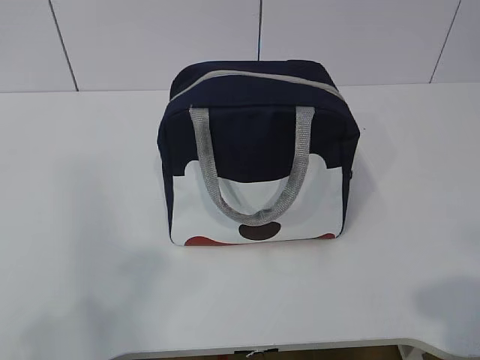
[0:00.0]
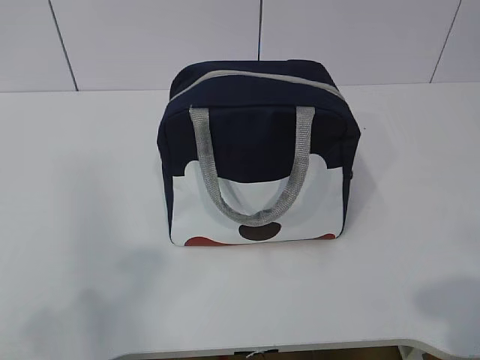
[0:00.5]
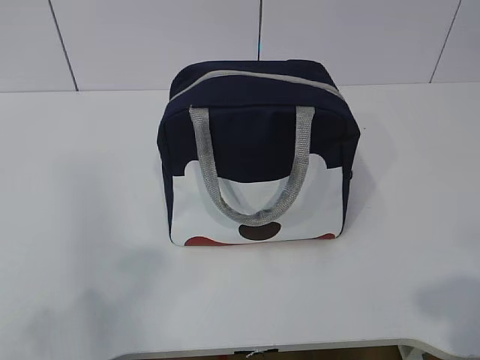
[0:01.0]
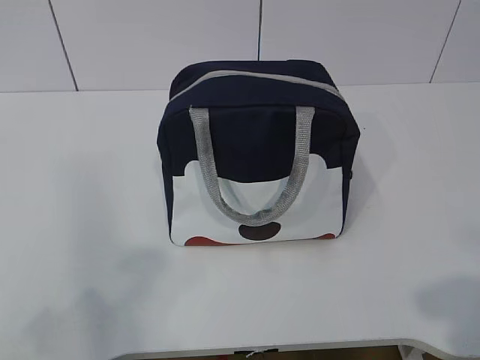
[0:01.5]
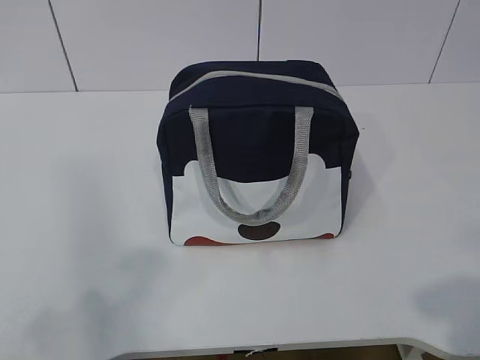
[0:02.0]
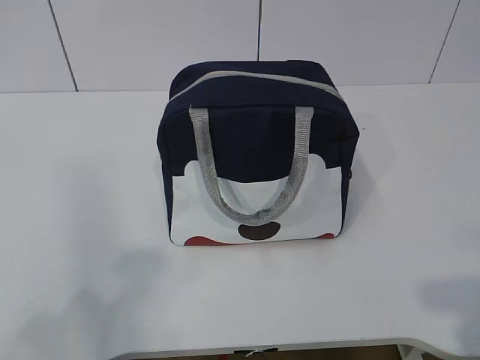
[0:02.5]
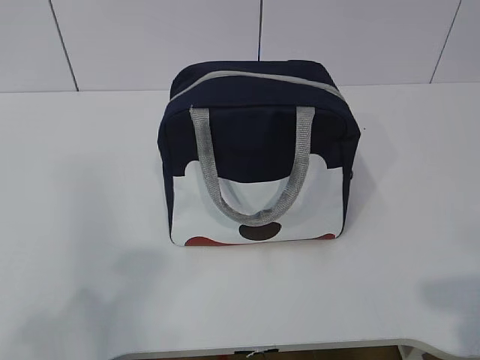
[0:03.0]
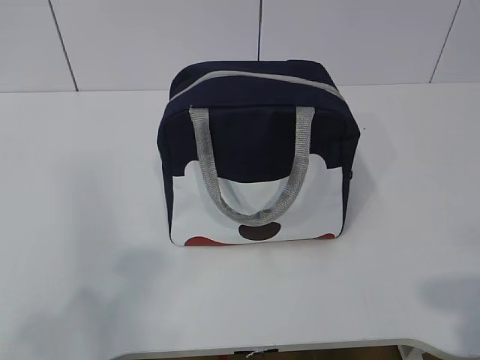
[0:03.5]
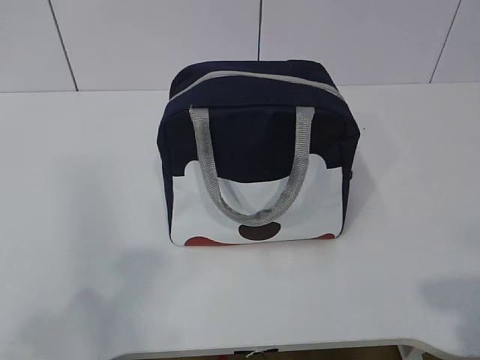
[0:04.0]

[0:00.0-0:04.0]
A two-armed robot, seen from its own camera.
0:00.0 to 0:02.0: Neither gripper changes place.

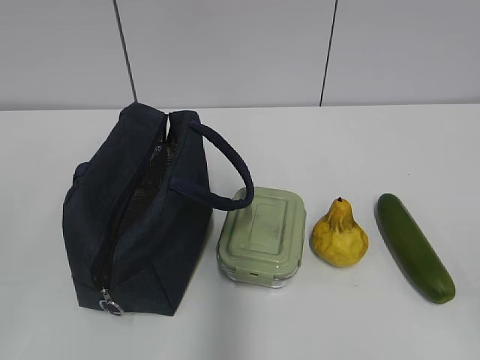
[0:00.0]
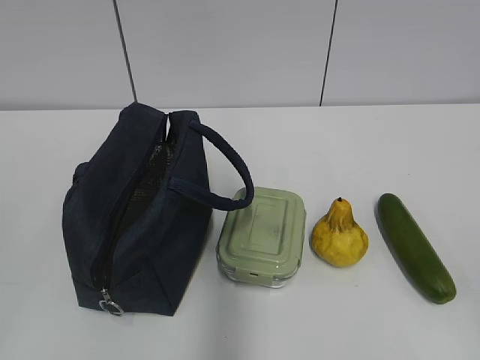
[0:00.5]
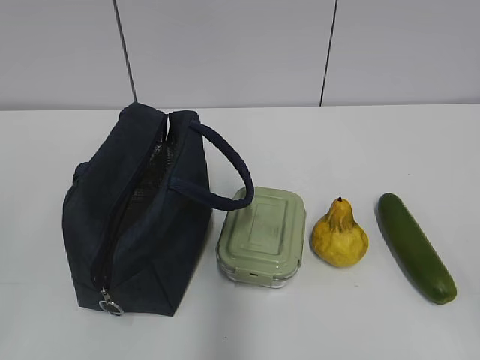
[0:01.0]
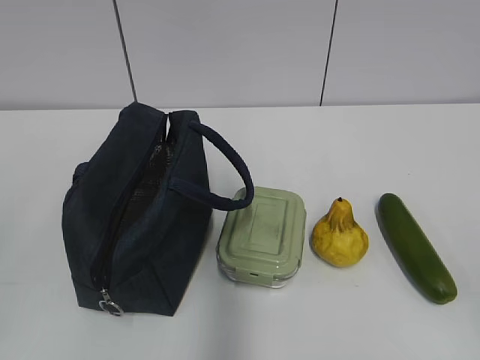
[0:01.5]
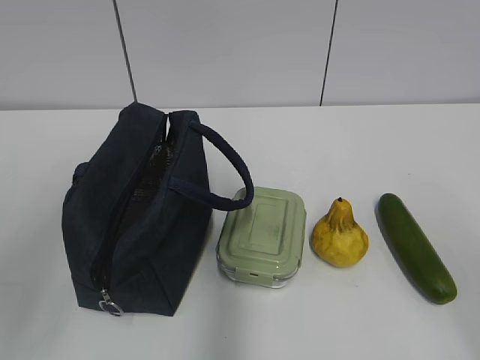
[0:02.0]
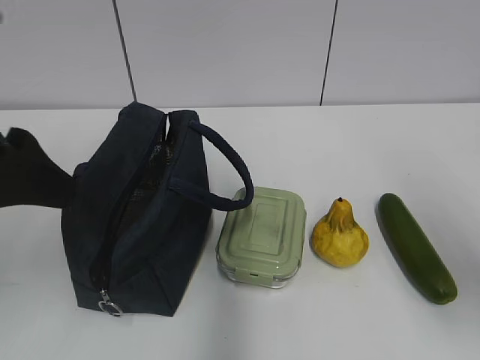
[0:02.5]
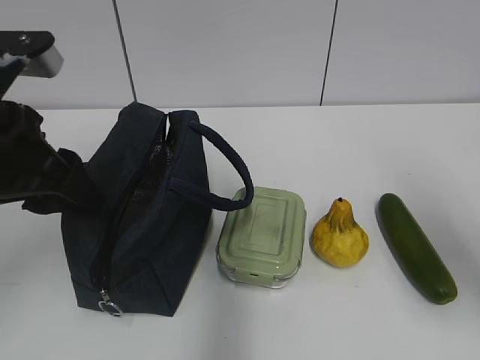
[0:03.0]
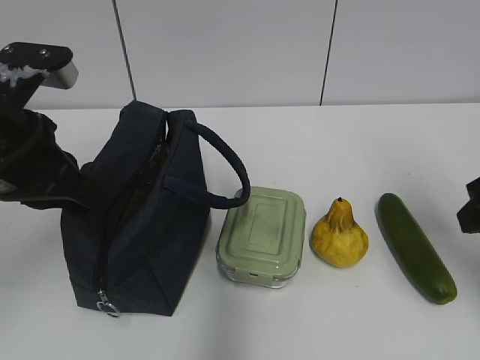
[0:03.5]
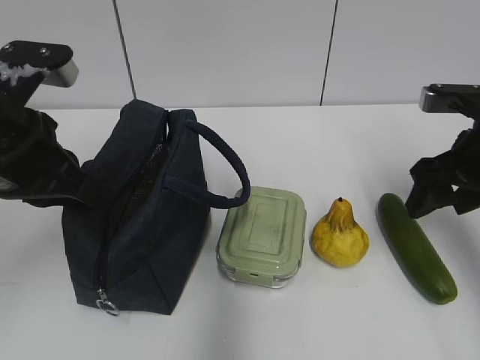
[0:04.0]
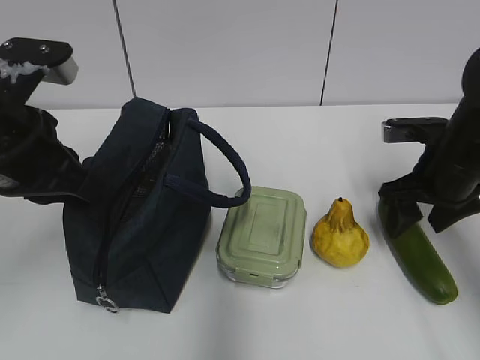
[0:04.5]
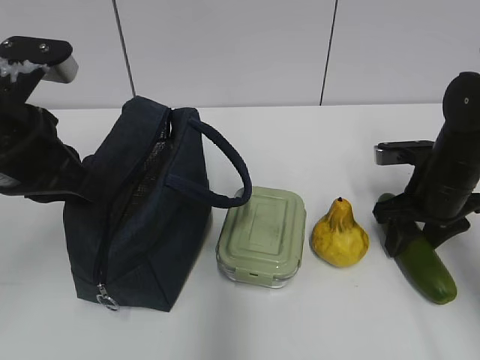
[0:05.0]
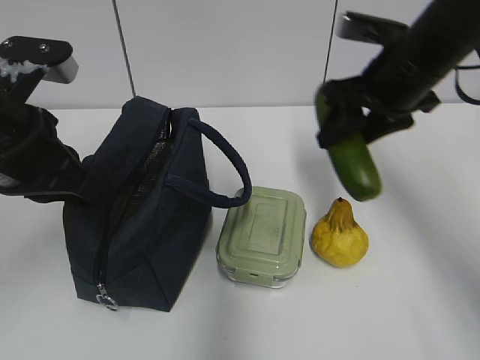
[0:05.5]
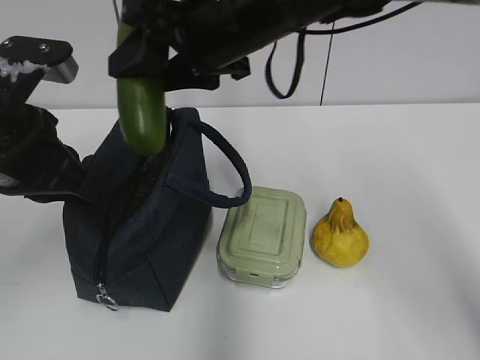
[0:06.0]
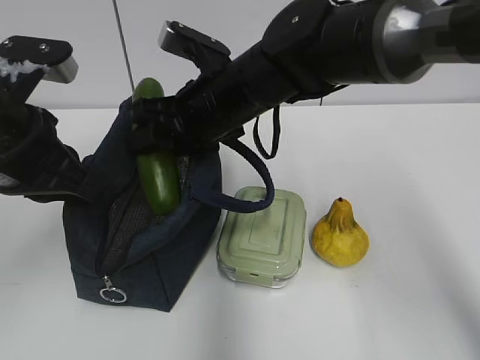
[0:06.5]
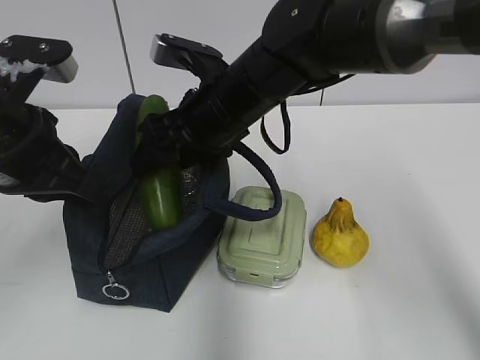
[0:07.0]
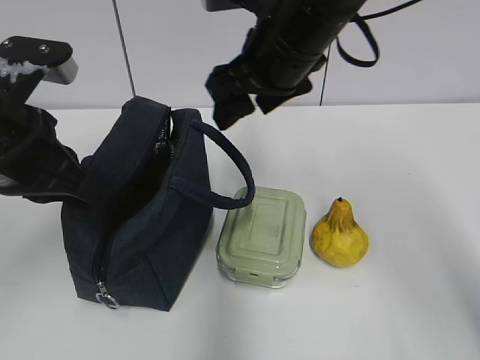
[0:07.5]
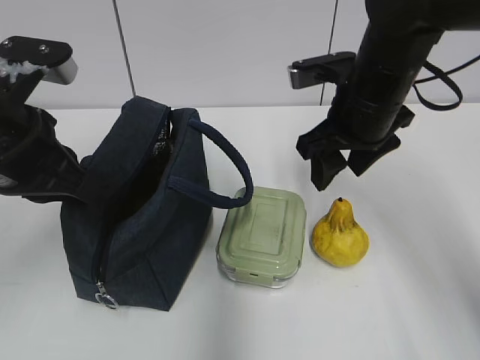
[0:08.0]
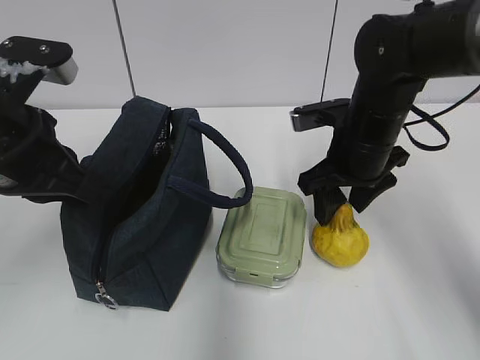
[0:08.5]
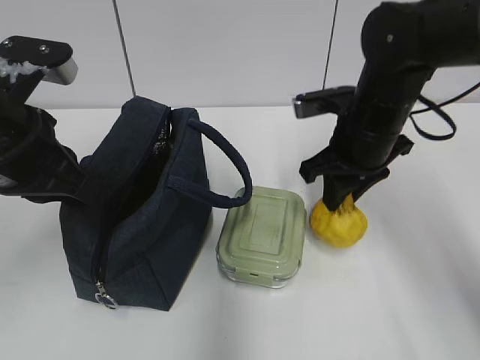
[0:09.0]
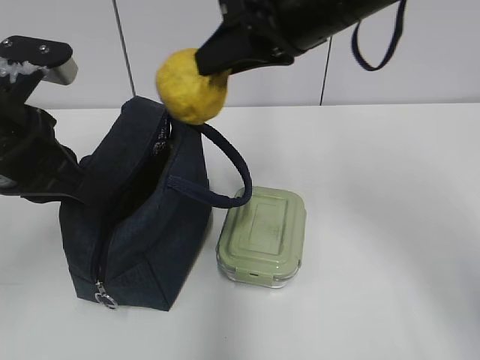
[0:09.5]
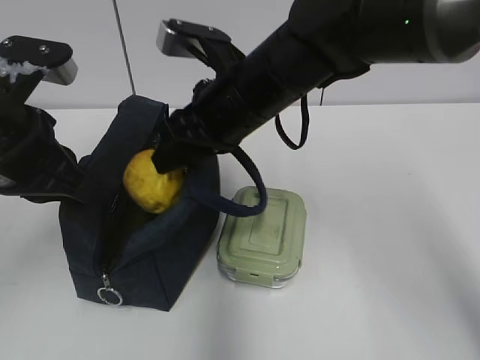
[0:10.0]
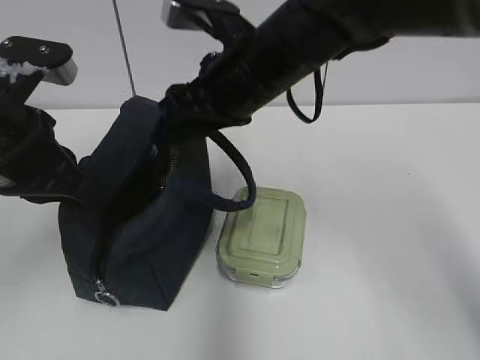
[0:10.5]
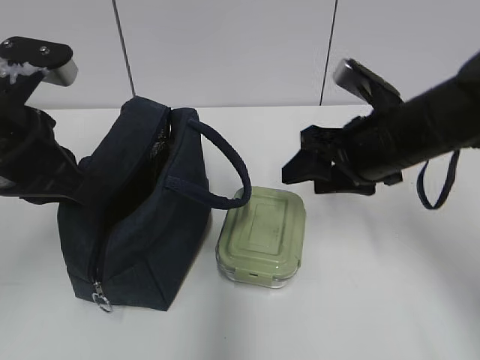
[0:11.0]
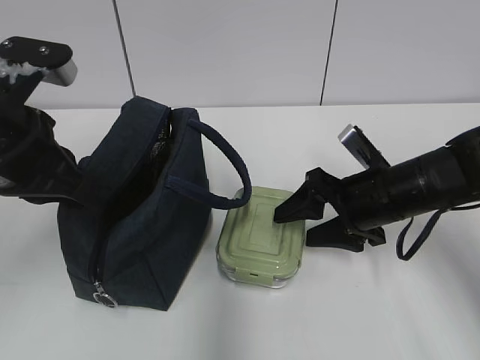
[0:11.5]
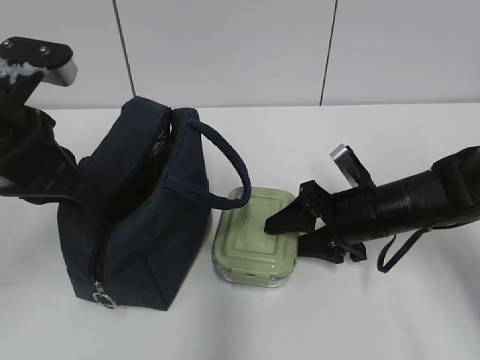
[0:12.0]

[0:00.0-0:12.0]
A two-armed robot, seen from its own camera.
0:02.0 to 0:04.0: The right gripper moves forward, about 25 cm, and opens its fingers. The left gripper heads forward, downward and to the right, covering some 15 cm, and closes its fingers.
0:04.0 to 0:06.0: The right gripper moves to the left, some 25 cm.
0:06.0 to 0:08.0: The right gripper travels to the right and downward by about 15 cm.
0:08.0 to 0:10.0: The right gripper swings up and down, about 15 cm each way, with 2 reversals, and closes.
0:10.0 to 0:12.0: The right gripper shifts roughly 20 cm to the right and downward.

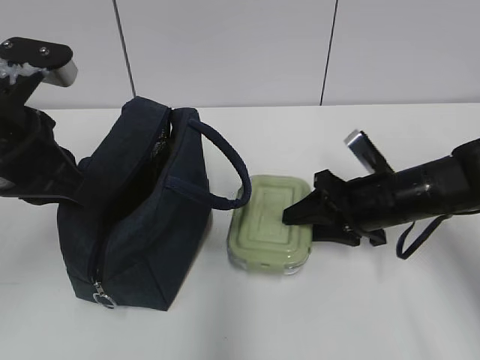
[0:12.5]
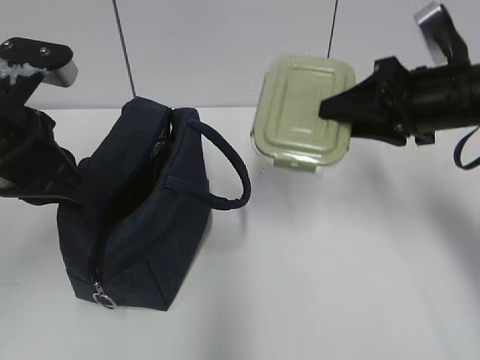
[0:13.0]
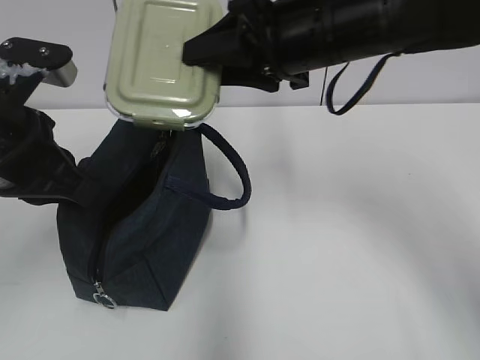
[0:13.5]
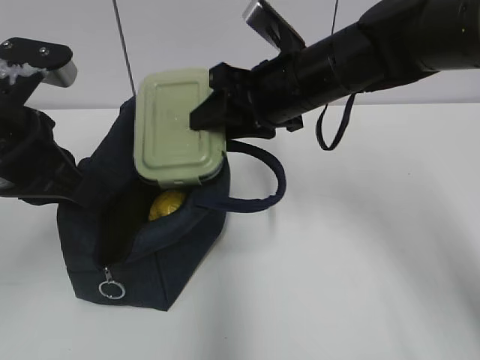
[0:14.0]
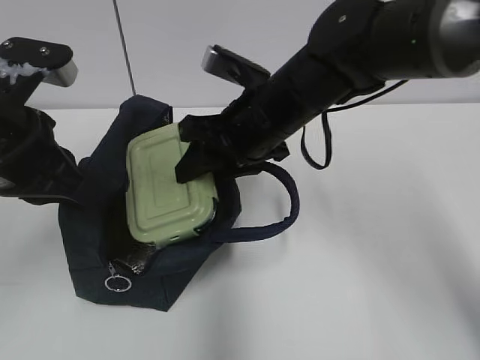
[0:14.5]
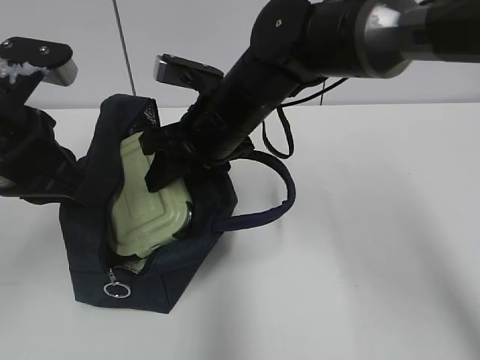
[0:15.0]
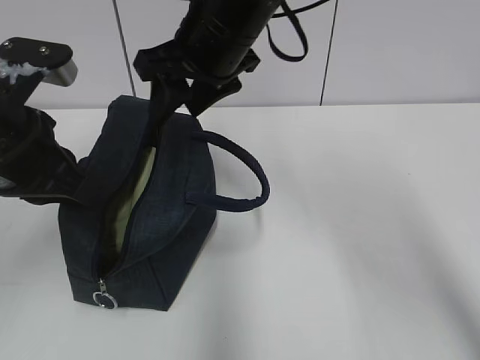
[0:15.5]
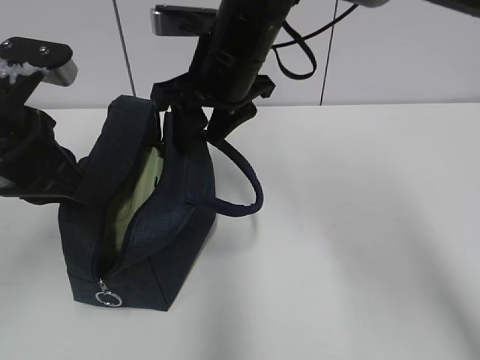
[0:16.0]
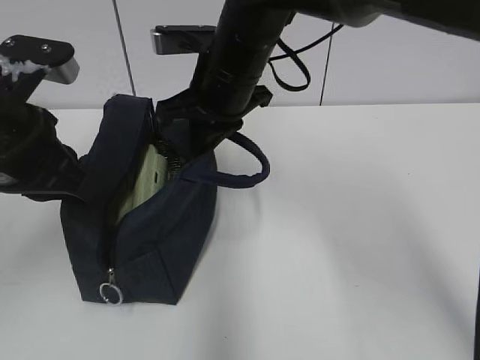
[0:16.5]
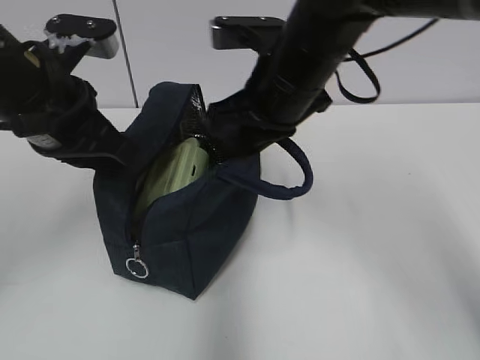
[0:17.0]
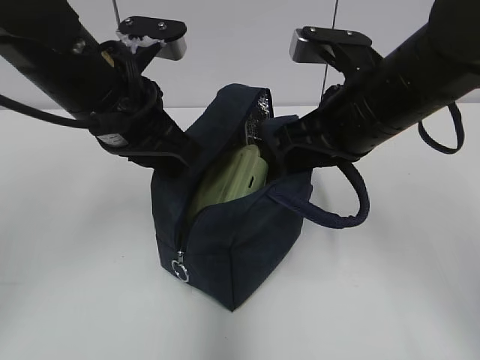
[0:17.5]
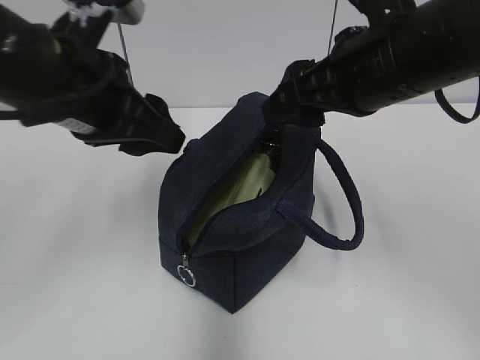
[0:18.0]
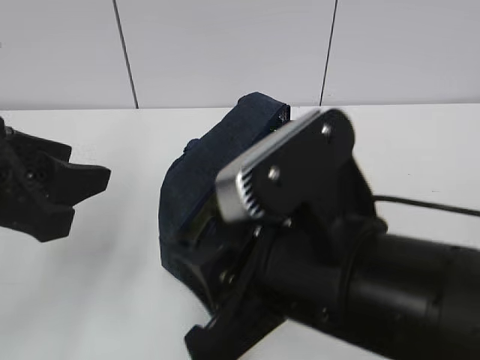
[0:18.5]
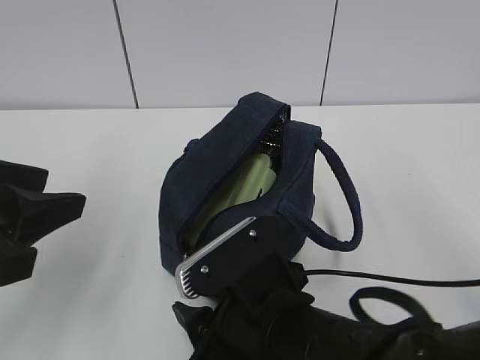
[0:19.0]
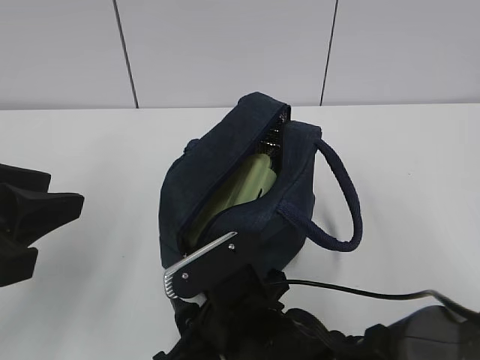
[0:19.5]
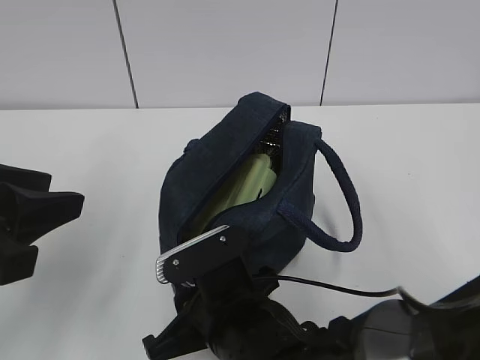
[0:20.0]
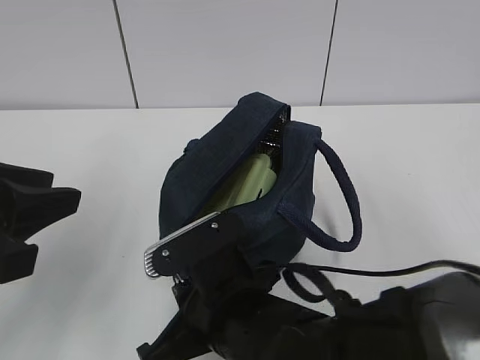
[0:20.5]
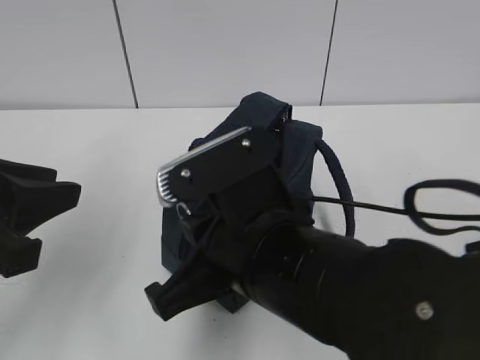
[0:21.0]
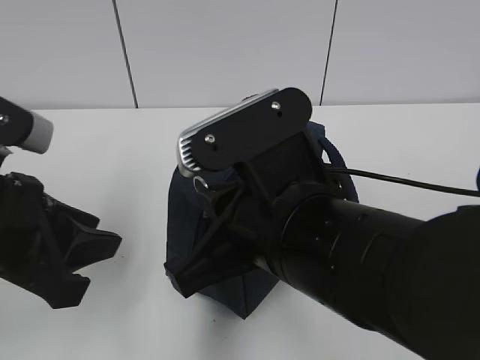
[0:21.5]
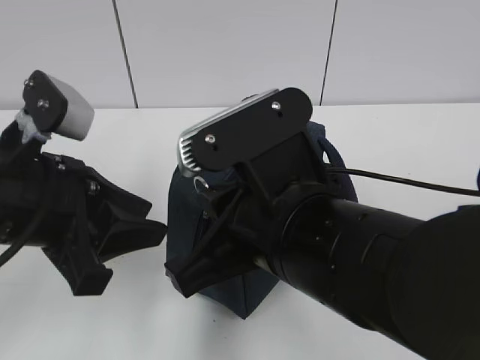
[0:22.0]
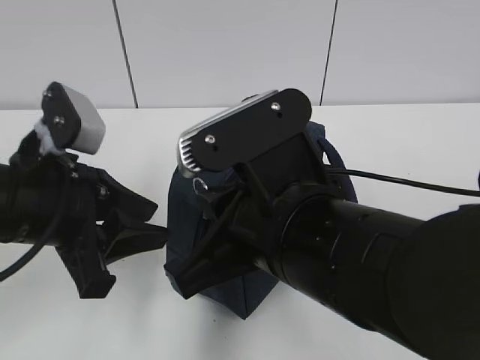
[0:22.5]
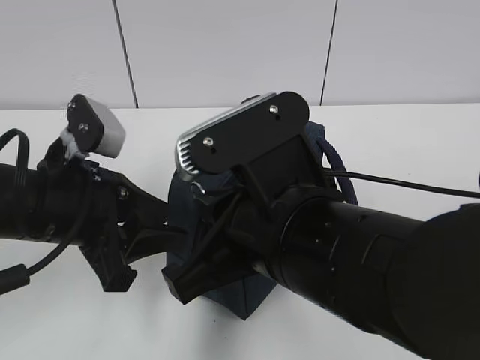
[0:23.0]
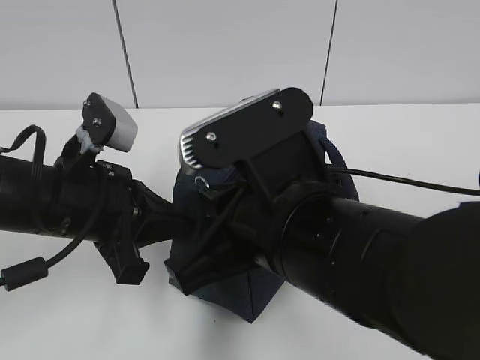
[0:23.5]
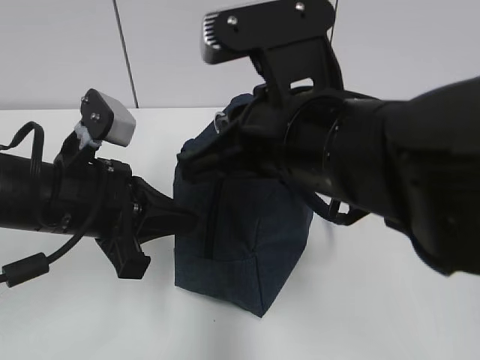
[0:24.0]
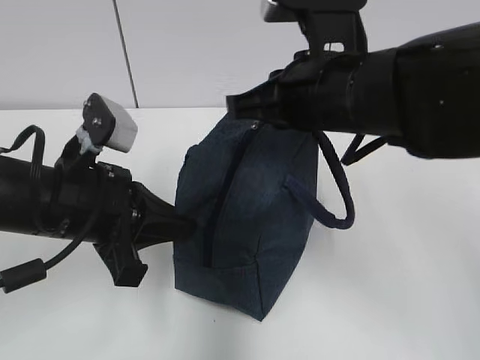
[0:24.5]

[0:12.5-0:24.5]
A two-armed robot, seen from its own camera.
0:12.5 to 0:14.5: The right gripper travels to the left and upward by about 20 cm.
0:14.5 to 0:16.5: The right gripper closes.
0:16.5 to 0:18.5: The left gripper travels backward by roughly 10 cm, and opens its fingers. The right gripper goes approximately 25 cm backward, and opens its fingers.
0:18.5 to 0:20.5: The right gripper moves downward and to the left, roughly 10 cm, and closes.
0:20.5 to 0:22.5: The left gripper is displaced forward and downward by about 10 cm. The right gripper shifts some 10 cm upward.
0:22.5 to 0:24.5: The right gripper heads forward and to the right, covering some 15 cm. Meanwhile the left gripper closes.
